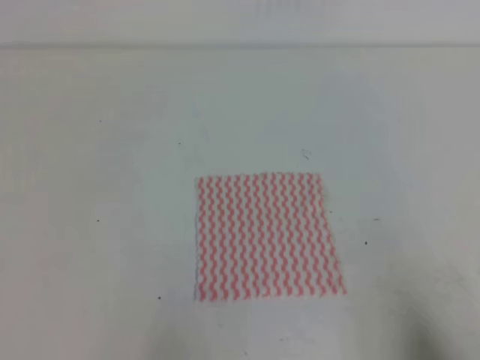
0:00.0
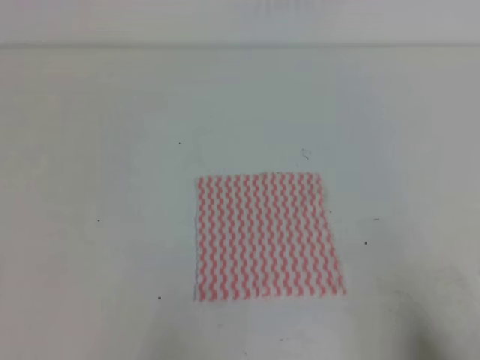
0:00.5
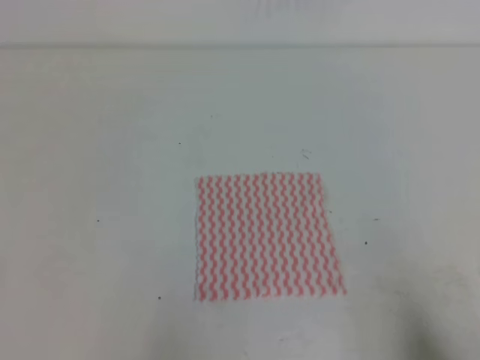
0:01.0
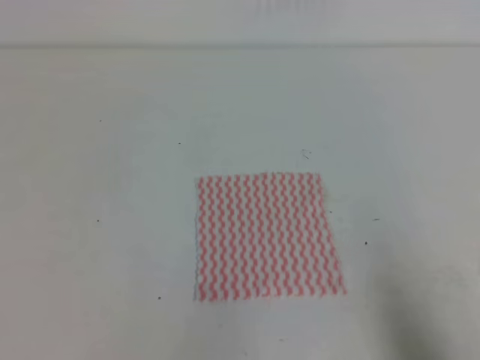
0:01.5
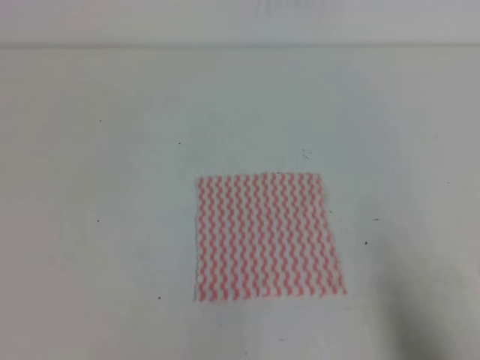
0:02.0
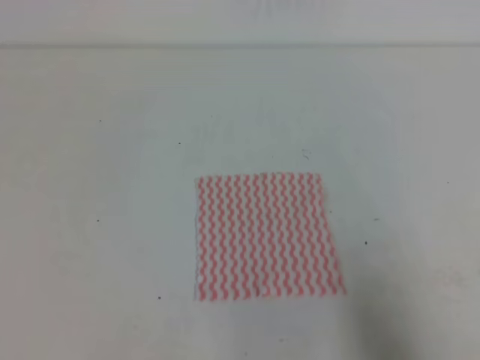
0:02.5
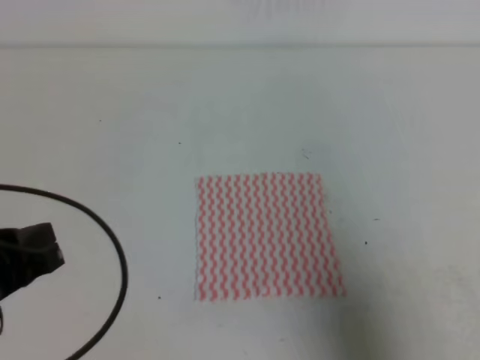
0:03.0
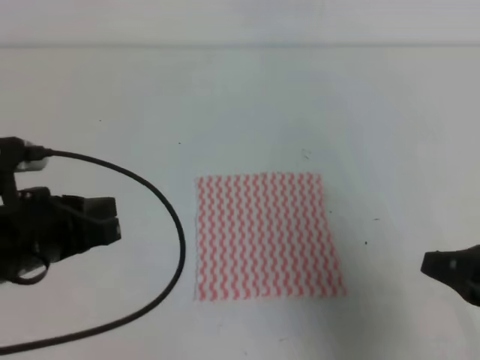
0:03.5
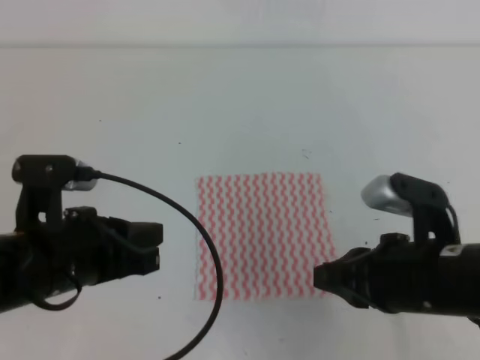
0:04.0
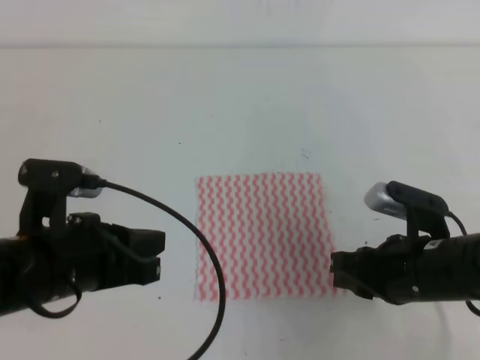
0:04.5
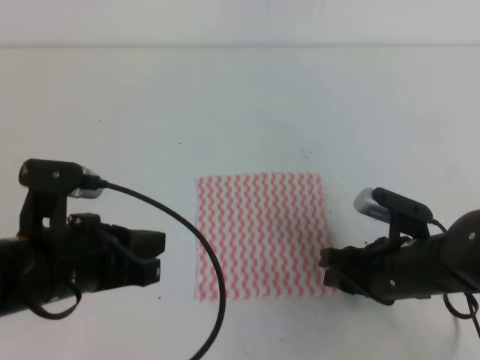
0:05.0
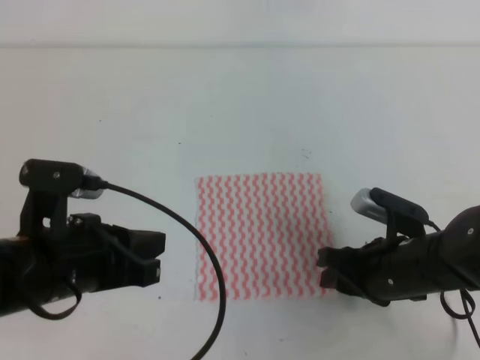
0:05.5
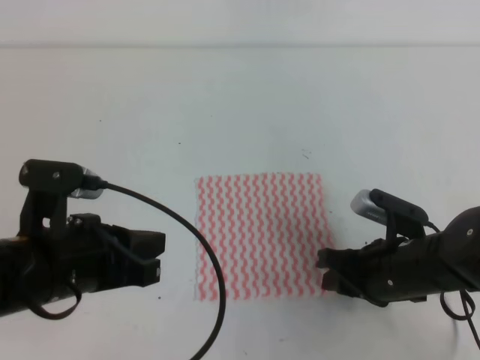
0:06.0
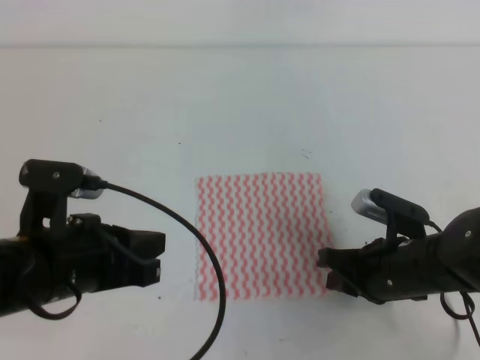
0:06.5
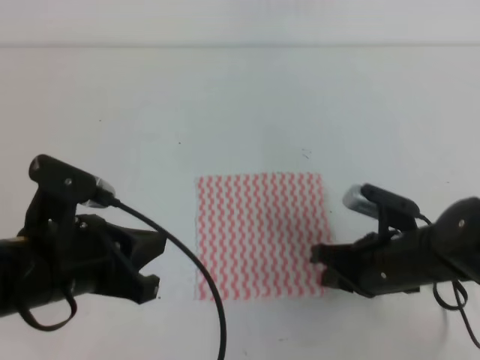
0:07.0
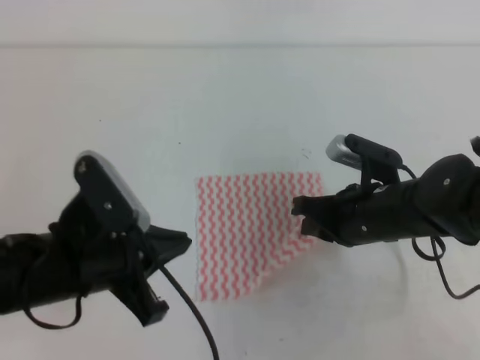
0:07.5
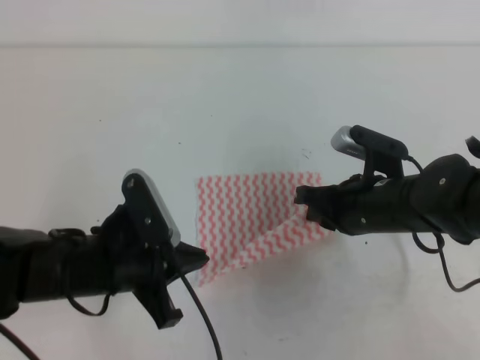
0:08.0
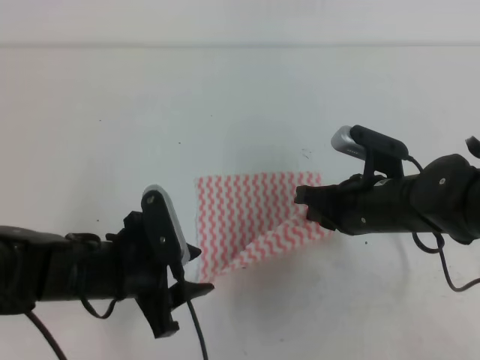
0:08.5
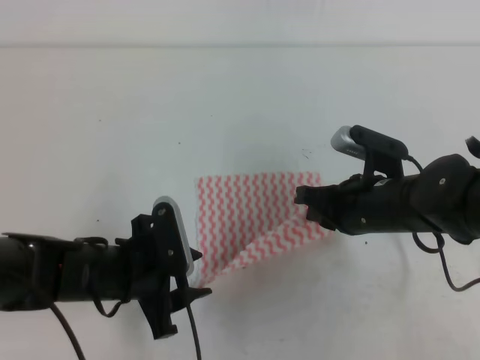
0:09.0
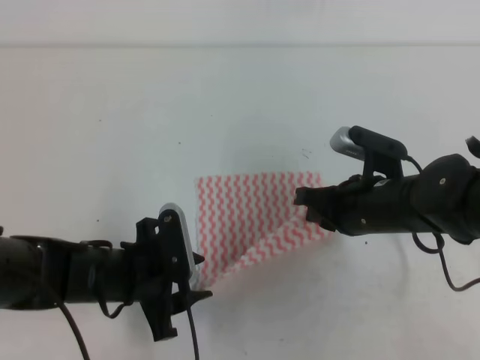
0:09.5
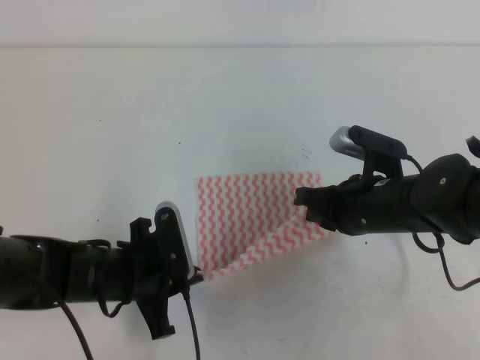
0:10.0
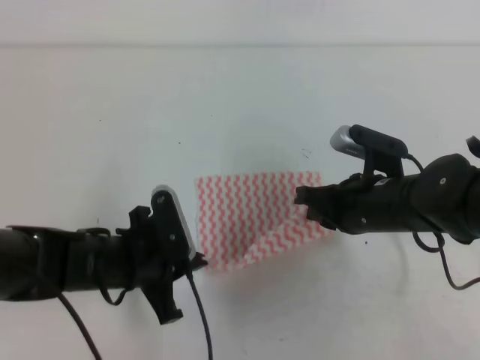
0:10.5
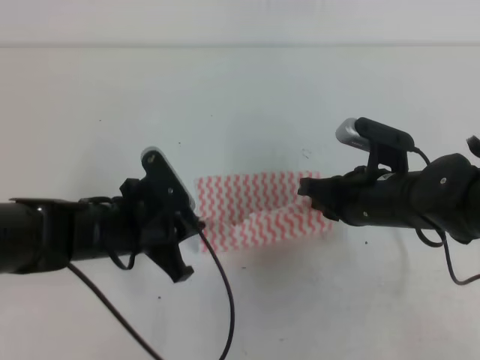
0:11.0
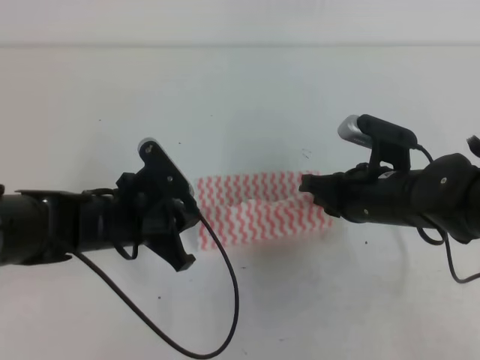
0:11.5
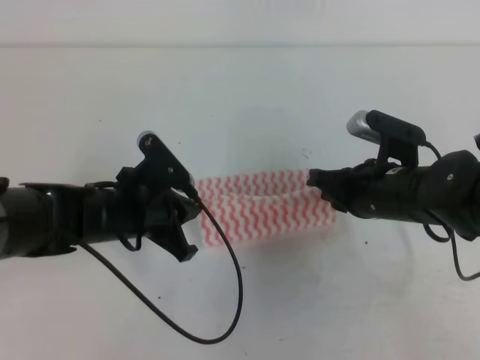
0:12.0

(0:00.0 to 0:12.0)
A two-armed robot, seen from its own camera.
0:02.0 - 0:04.0: The right gripper heads to the left and forward, covering about 20 cm, while the left gripper goes some 15 cm forward and to the right.
0:04.0 - 0:06.0: The right gripper moves downward and forward, approximately 10 cm, and opens up.
0:06.0 - 0:08.0: The left gripper moves downward, about 5 cm; the right gripper moves forward and upward, some 10 cm, and closes.
0:08.0 - 0:10.0: The left gripper travels downward by about 5 cm, and opens, then closes again.
0:10.0 - 0:12.0: The left gripper goes approximately 5 cm forward.

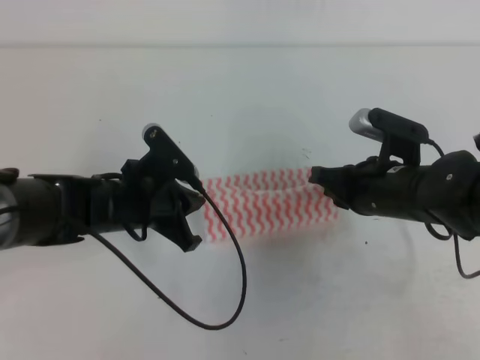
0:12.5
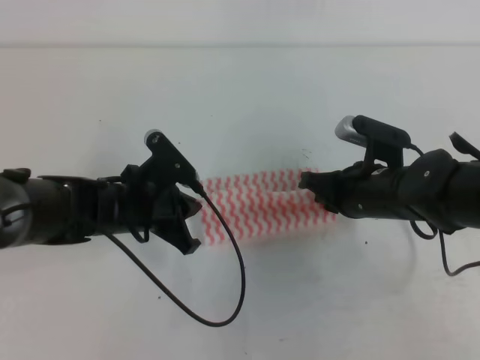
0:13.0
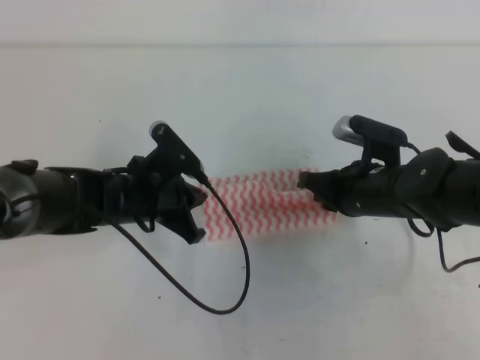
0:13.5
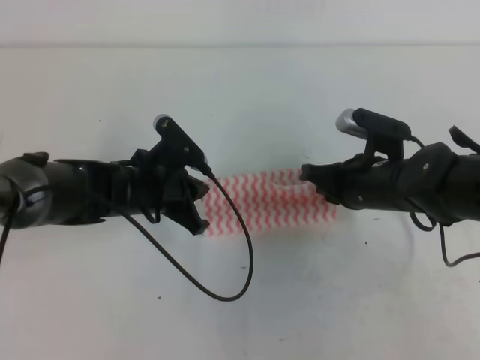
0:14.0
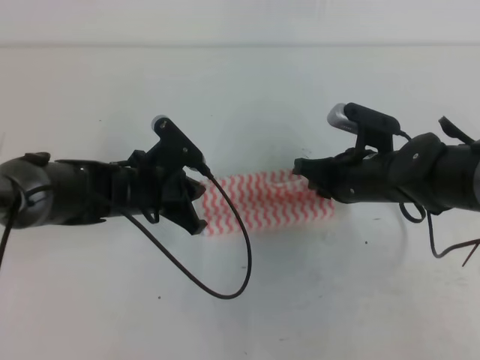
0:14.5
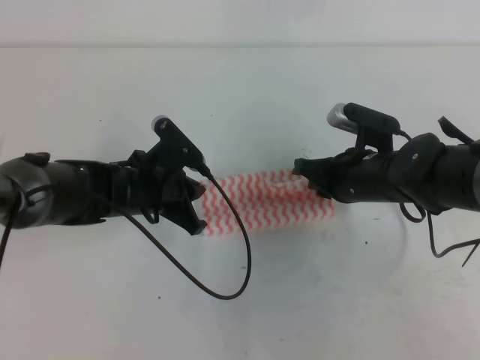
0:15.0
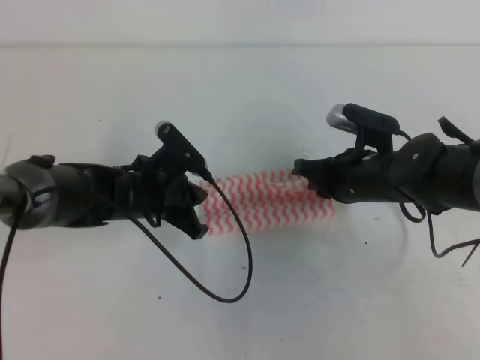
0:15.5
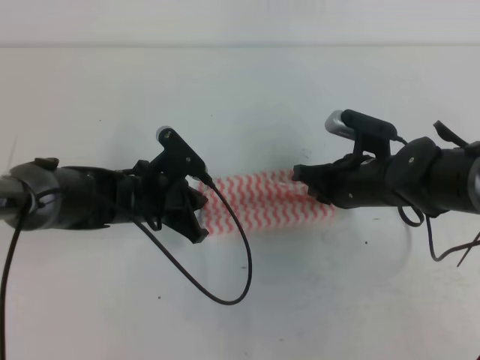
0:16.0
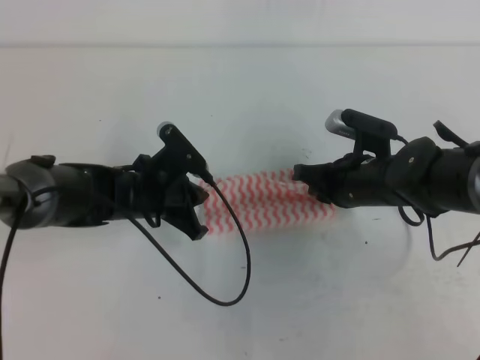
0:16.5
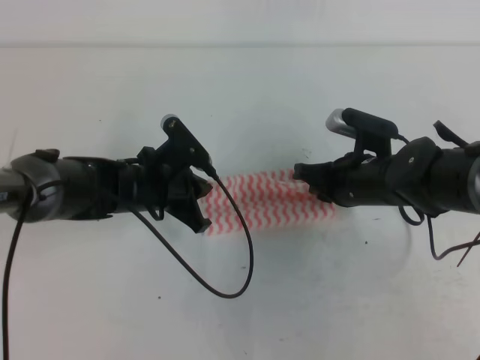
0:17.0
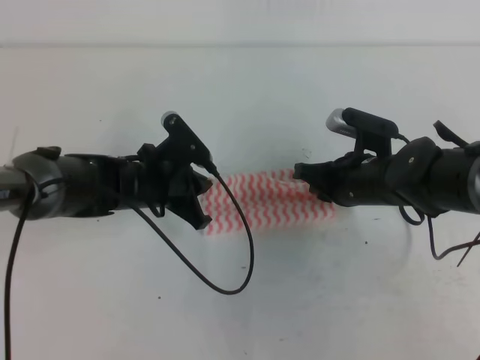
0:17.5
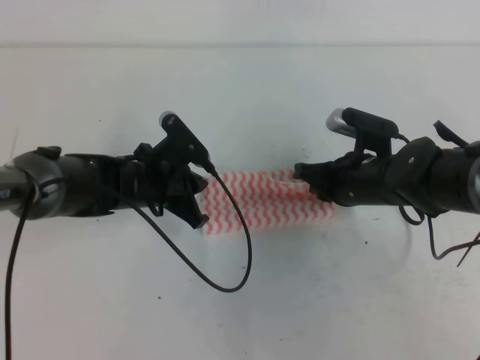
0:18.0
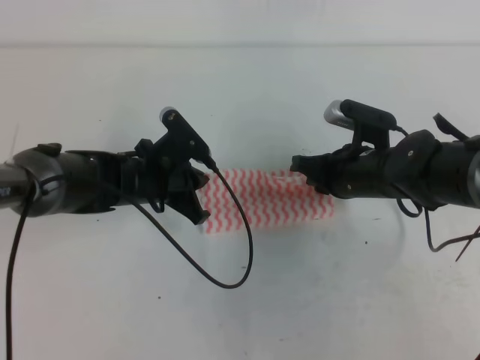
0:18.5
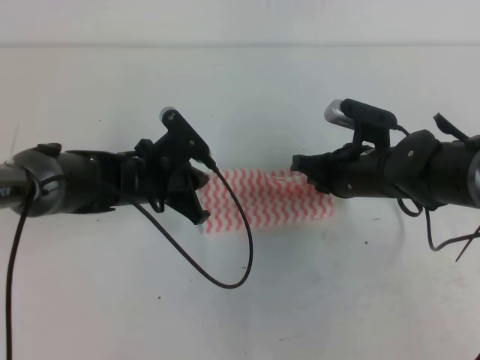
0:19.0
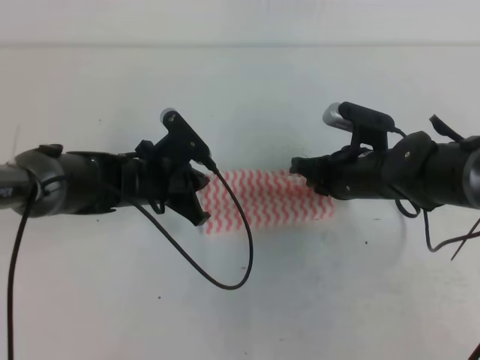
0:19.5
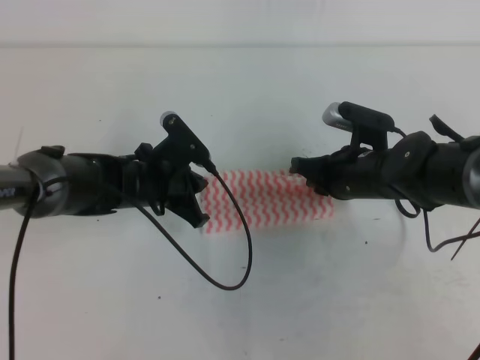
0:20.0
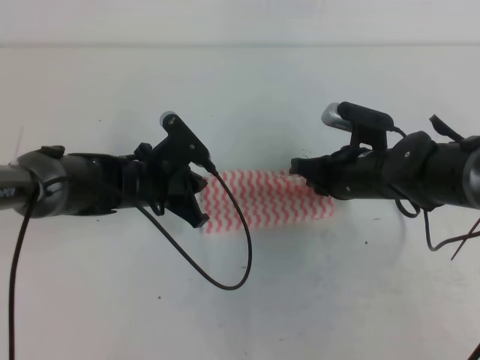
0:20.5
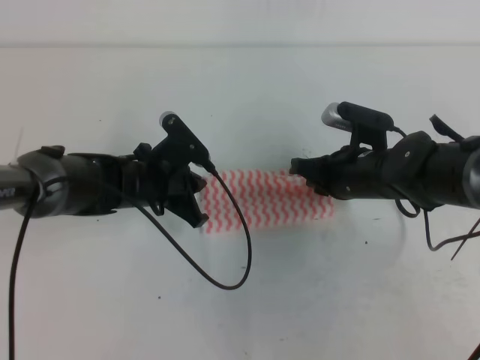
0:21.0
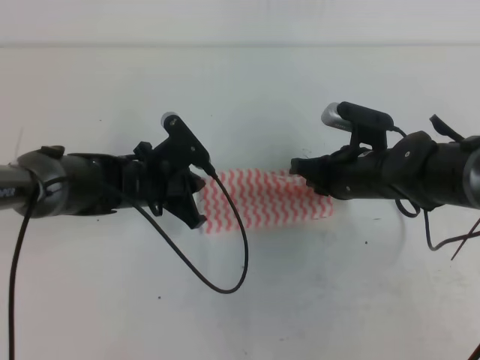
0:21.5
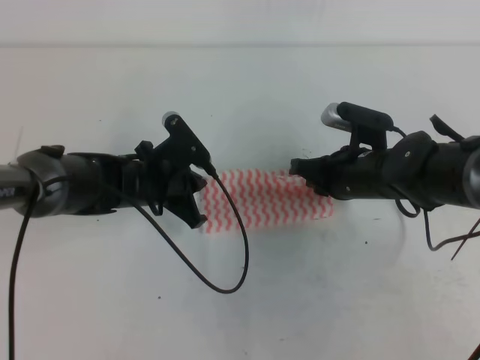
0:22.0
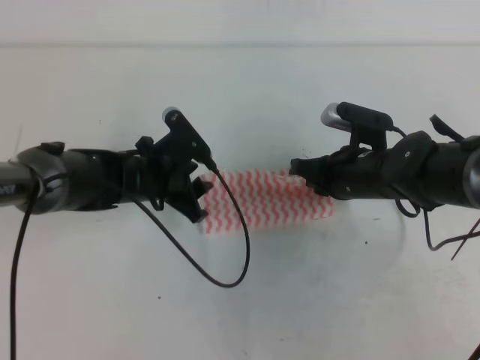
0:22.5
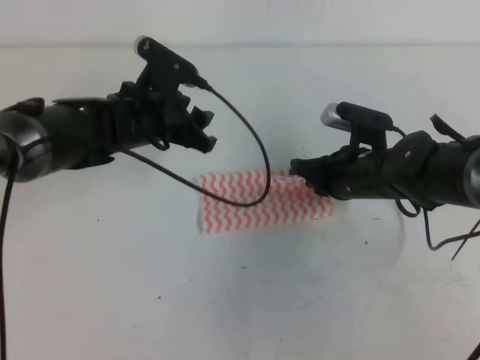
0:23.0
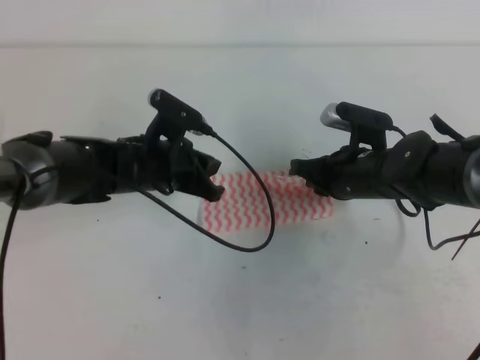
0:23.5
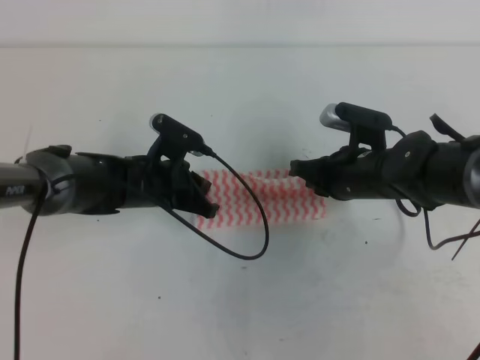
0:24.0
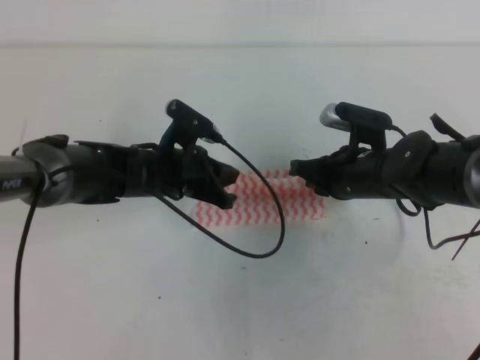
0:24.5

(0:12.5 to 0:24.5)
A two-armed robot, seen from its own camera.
0:12.5 - 0:18.5: The grippers stay close to where they were, moving slightly.
0:18.5 - 0:20.5: Both grippers stay put.
0:20.5 - 0:22.5: The left gripper opens.
0:22.5 - 0:24.5: The left gripper closes up.

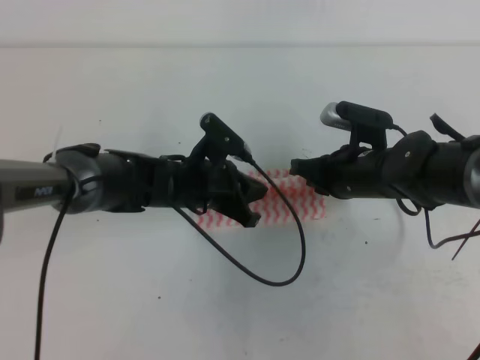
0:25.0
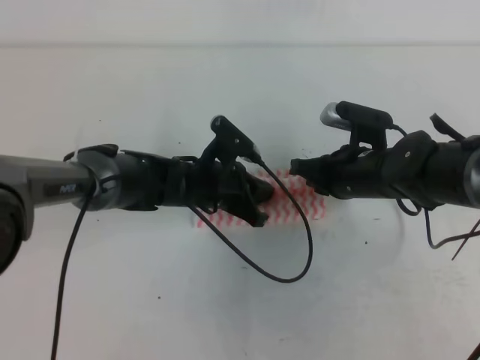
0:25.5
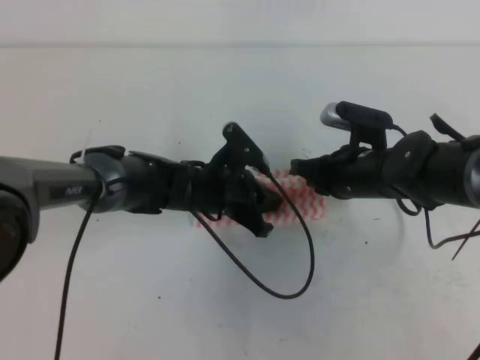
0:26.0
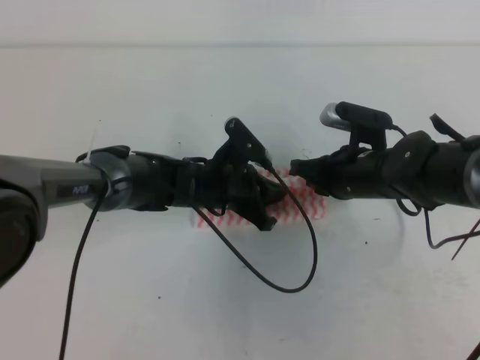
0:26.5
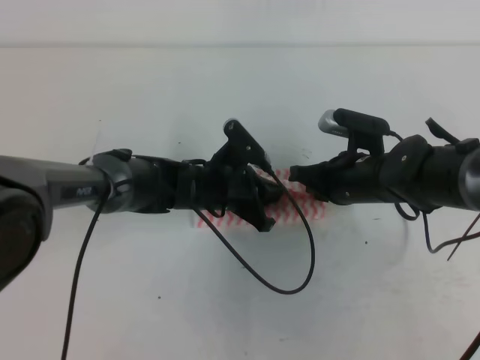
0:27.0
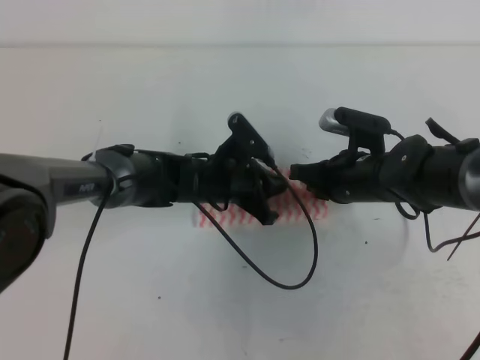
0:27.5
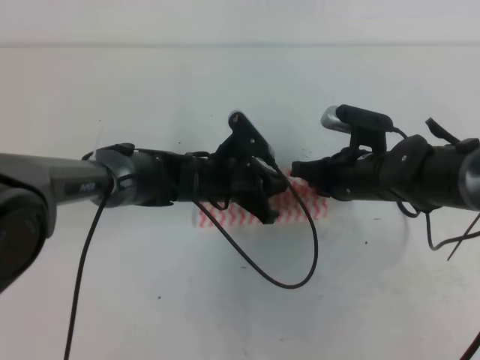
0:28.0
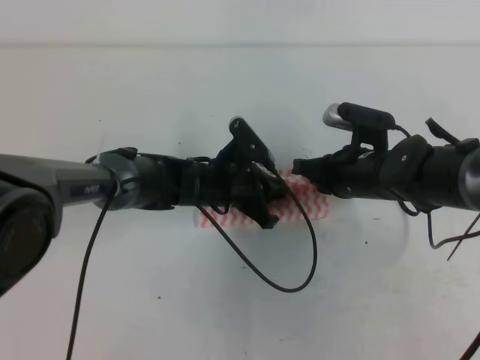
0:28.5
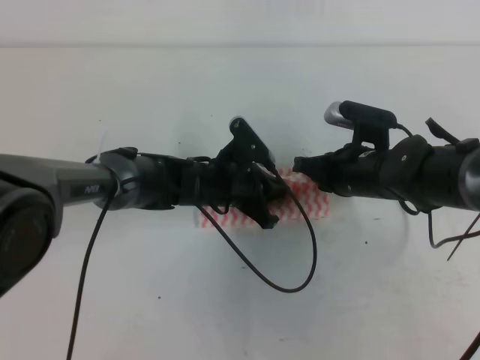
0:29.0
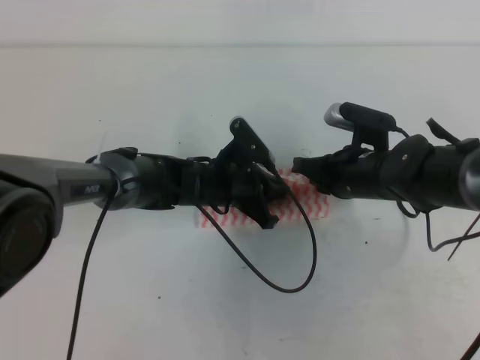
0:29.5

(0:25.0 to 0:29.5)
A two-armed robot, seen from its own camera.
0:25.0 - 0:27.0: The grippers stay close to where they were, moving slightly.
0:27.0 - 0:29.5: The two grippers keep their place.
